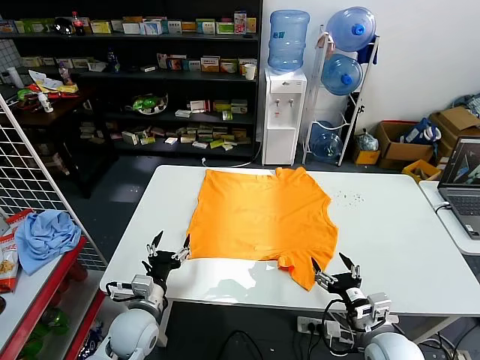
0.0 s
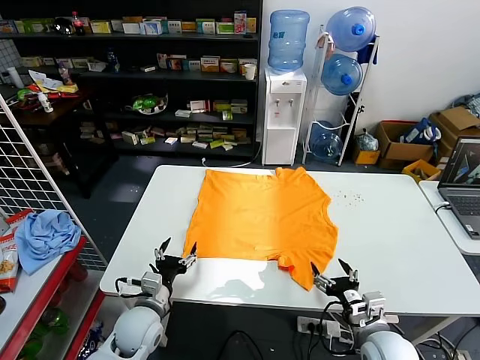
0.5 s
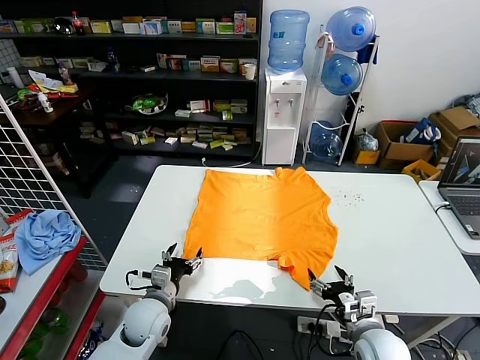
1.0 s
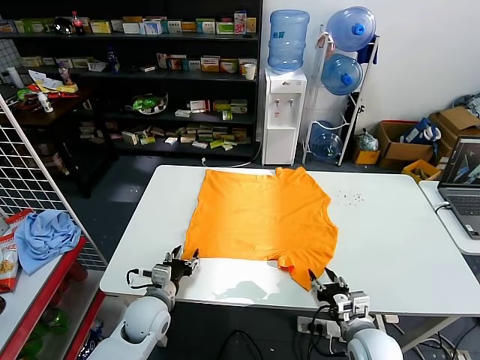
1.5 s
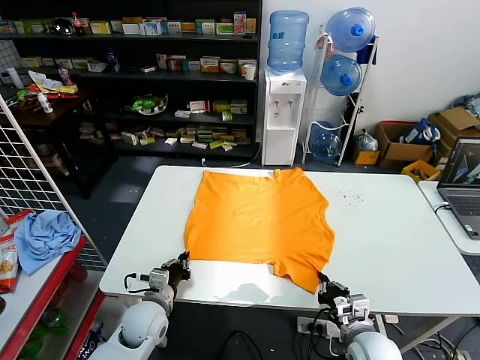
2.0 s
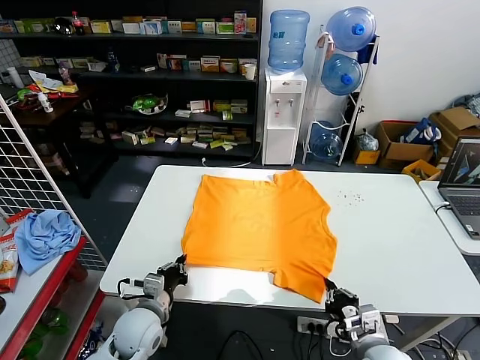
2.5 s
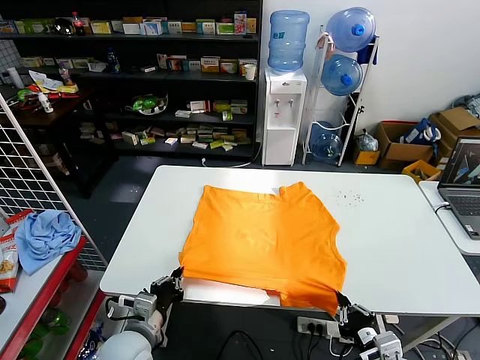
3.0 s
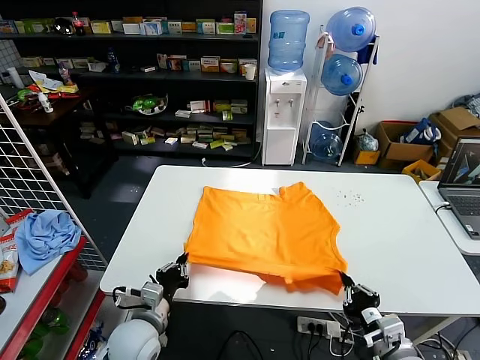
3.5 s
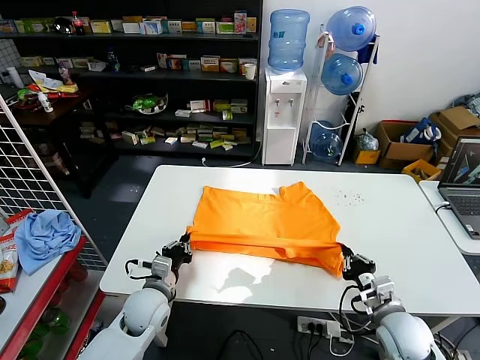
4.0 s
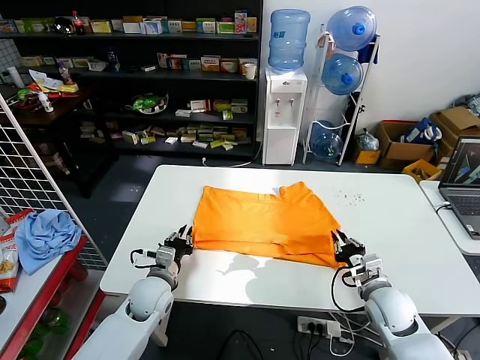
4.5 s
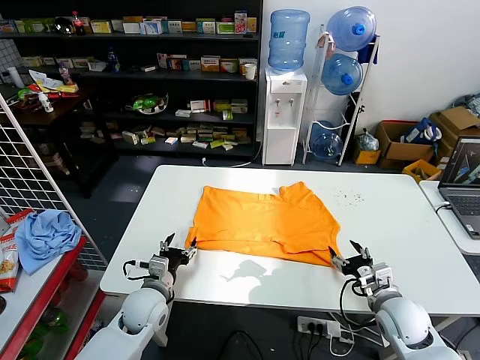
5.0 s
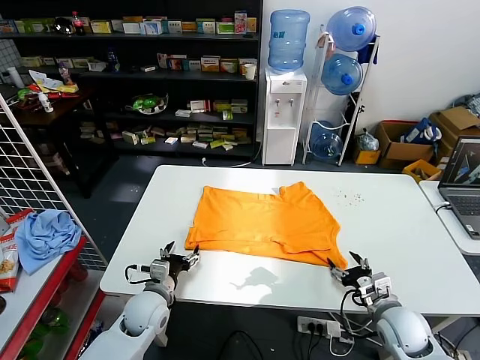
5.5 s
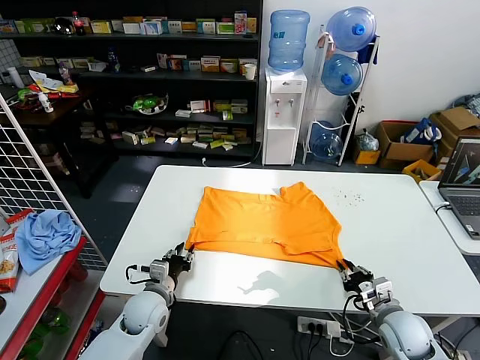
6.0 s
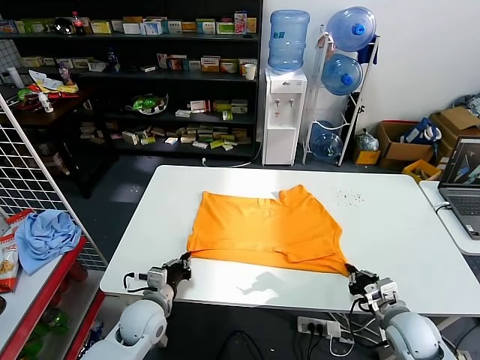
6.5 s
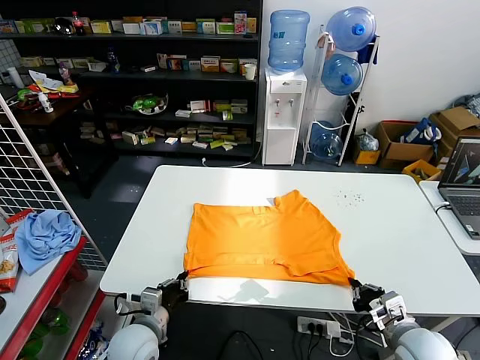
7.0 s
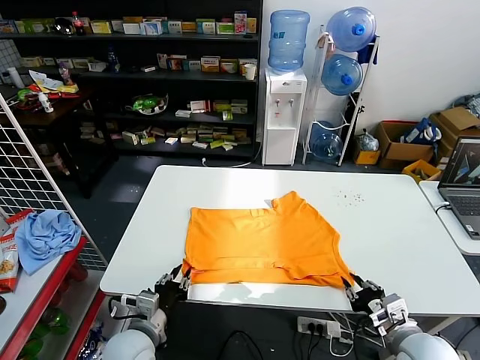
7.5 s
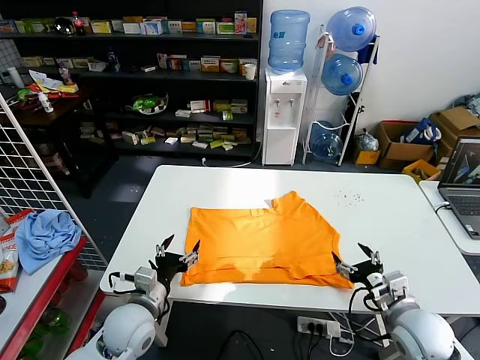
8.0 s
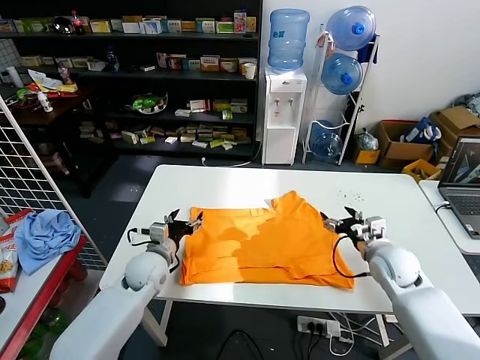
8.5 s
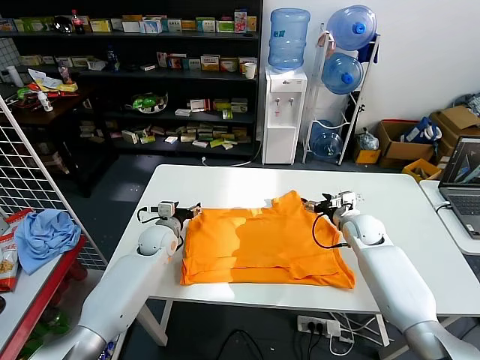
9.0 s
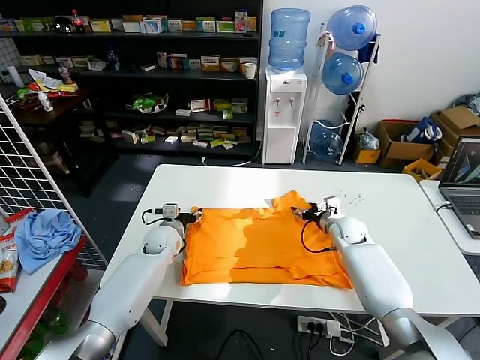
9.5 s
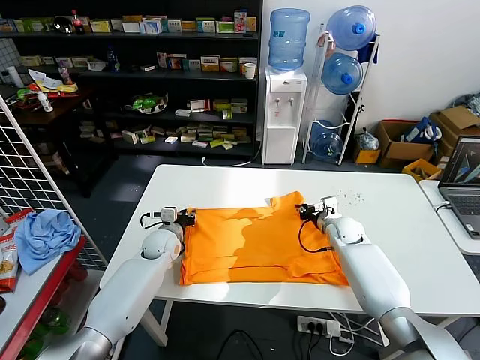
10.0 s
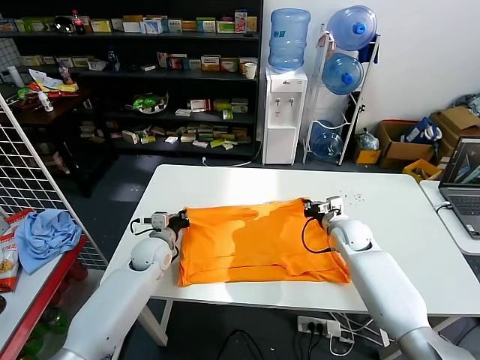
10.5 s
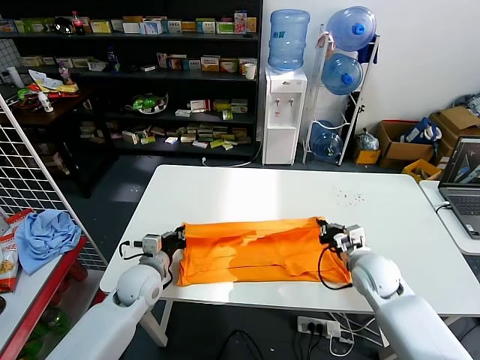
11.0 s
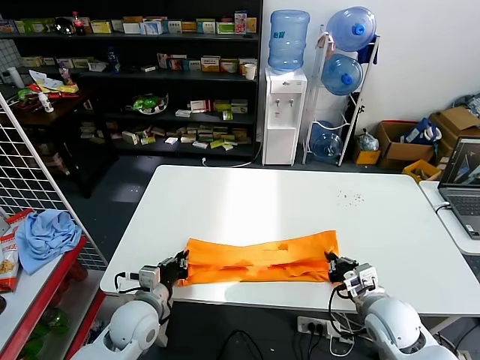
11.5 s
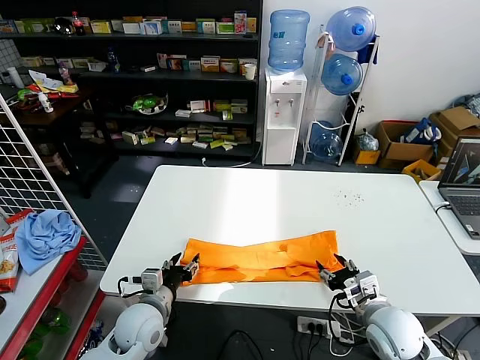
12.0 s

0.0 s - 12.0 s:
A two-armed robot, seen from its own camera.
Task of the whole recording: fold and organize the clothes.
Step, 0.0 s - 2.0 s: use both grippers simultaneously to clamp the lower edge of the clothing fabric.
Step, 2.5 s - 4.5 s: use both grippers to drag the lower edge of the fabric forward and fold it over the upper edge.
Step, 5.0 s - 7.5 s: Drag the clothes downward with both gripper.
Step, 8.0 s - 10.0 s: use both grippers simultaneously to clamp the upper edge of the clothing fabric.
2.0 s - 4.0 s: The left gripper travels backward and back again, roughly 10 cm each way. The right gripper is displaced to the right by approximately 5 cm, and moves roughly 10 cm backward and comes back.
4.0 s - 6.0 s: The right gripper opens, then closes once more. Meanwhile the left gripper opens.
6.0 s - 8.0 s: The right gripper moves upward, approximately 10 cm, and opens, while the left gripper shifts approximately 10 cm upward and backward, and opens up.
8.0 s - 10.0 s: Both grippers move forward, about 25 cm. The left gripper closes its fingers. The right gripper closes its fingers.
10.0 s - 12.0 s: Both grippers move backward, some 25 cm. The right gripper opens. Meanwhile the left gripper closes, then opens again.

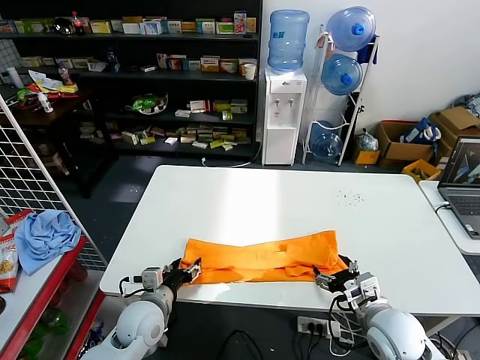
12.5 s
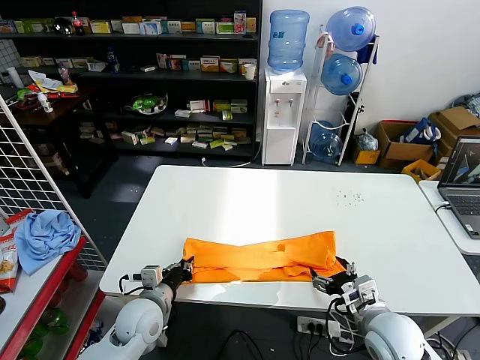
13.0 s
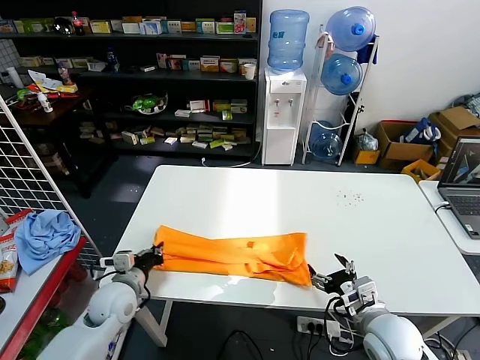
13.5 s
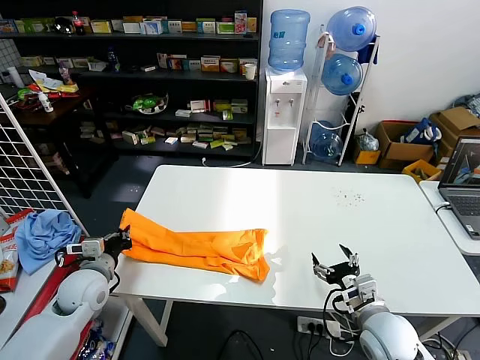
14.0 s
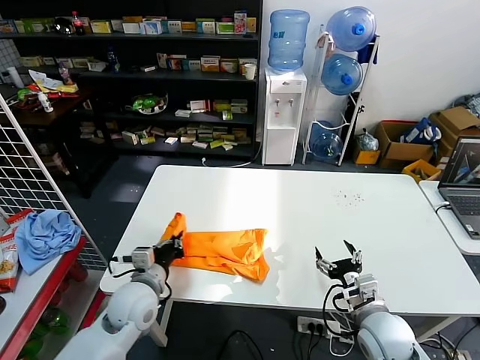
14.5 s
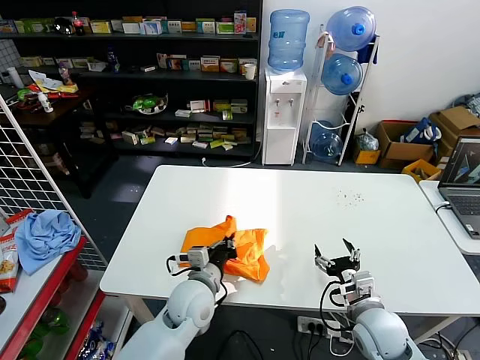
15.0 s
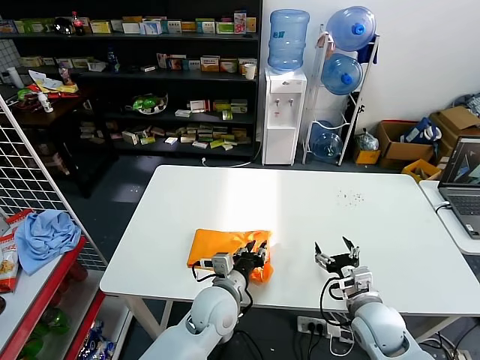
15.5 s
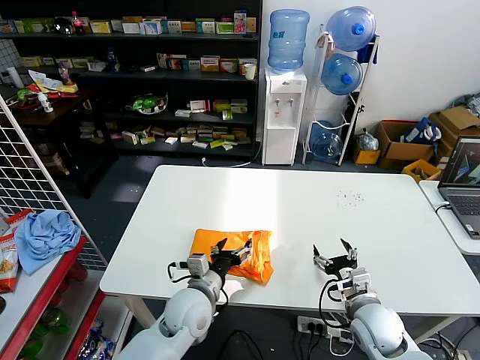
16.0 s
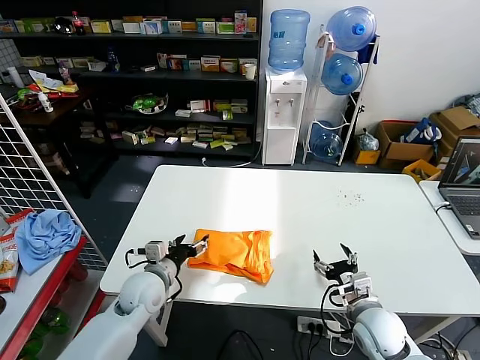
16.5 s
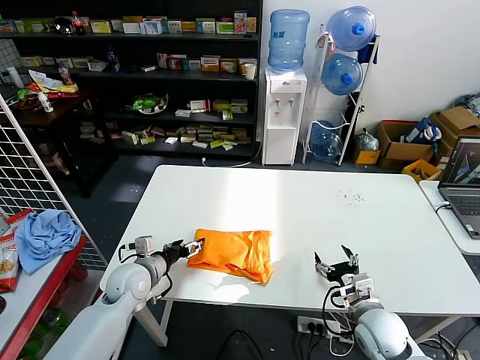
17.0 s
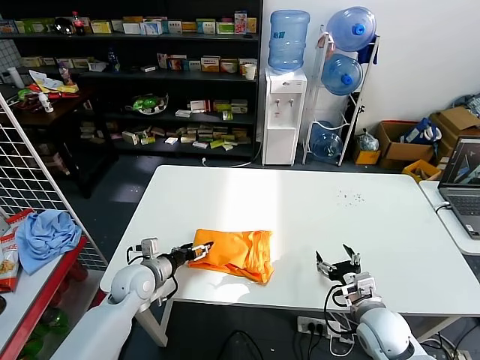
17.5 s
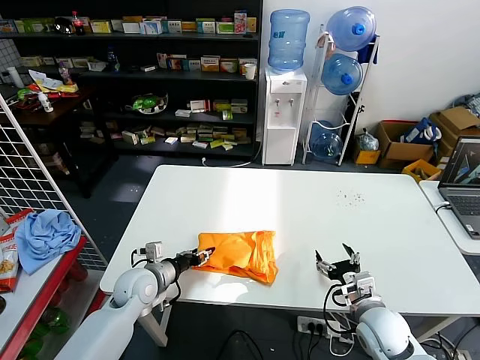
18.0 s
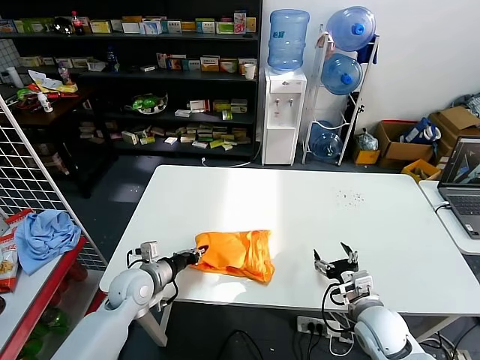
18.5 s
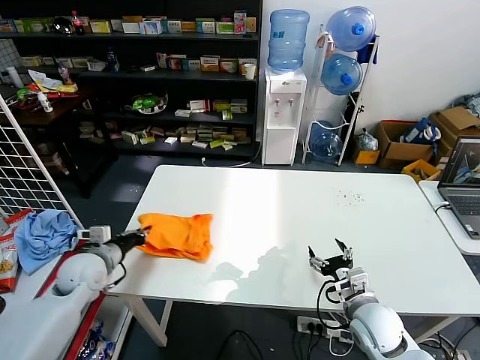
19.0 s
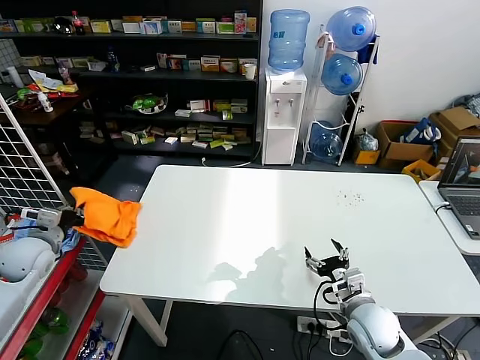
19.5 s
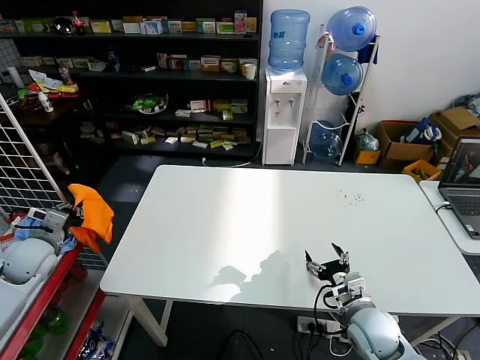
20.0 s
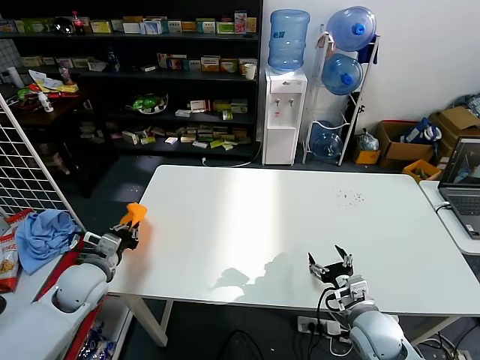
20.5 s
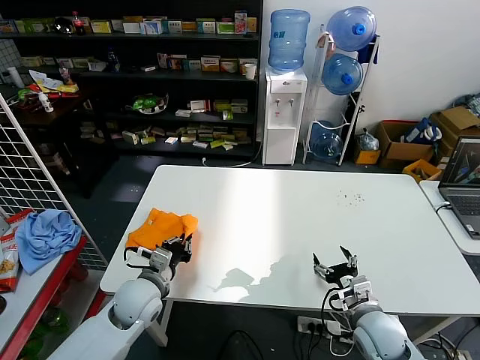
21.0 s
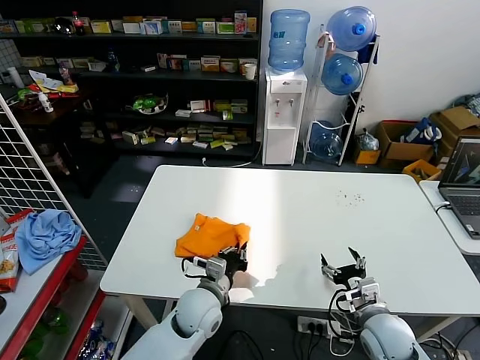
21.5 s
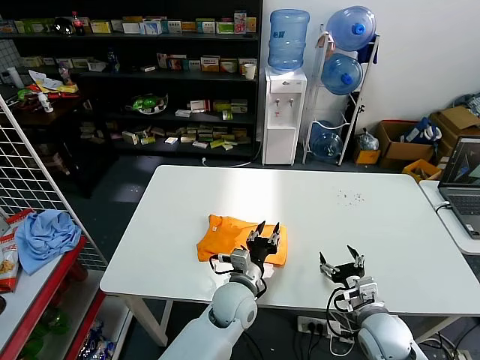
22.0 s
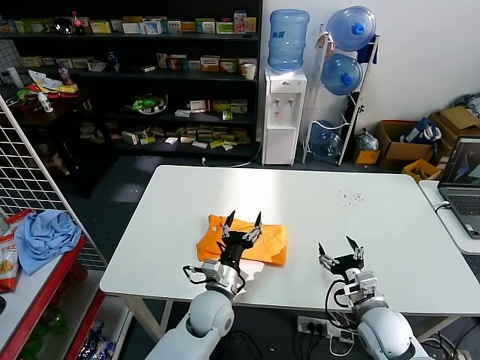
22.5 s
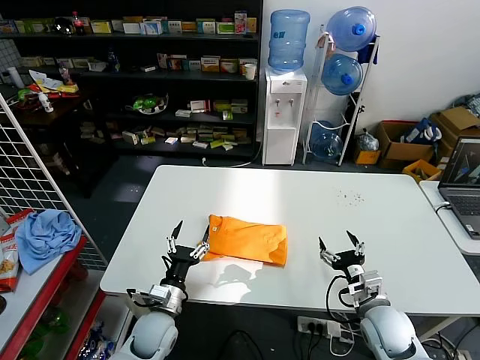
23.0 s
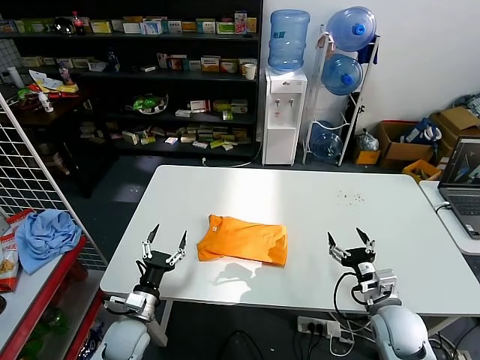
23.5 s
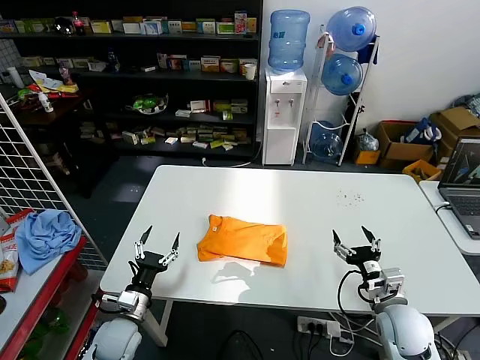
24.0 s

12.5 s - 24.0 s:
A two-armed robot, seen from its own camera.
Task of the whole recording: fold and organize the clothes.
Step, 12.5 s - 13.0 s: use the left gripper to clamp the left edge of the fabric.
Step, 13.5 s - 15.5 s: use the left gripper to drag the left edge of the fabric to the left and folds it over the right edge.
Step, 16.0 s - 22.0 s: Flip the folded clothes over with left gripper.
12.5 s - 14.5 s: The left gripper moves upward, roughly 5 cm, travels to the left and back again, about 15 cm each way, and closes its fingers.
14.5 s - 16.5 s: The left gripper travels to the right and back again, roughly 20 cm each way, and opens up.
16.5 s - 18.5 s: The left gripper closes up.
18.5 s - 20.0 s: The left gripper is displaced to the left and upward by approximately 25 cm.
20.0 s - 22.0 s: The left gripper heads to the right, covering roughly 50 cm, and opens up.
22.0 s - 24.0 s: The left gripper goes some 25 cm to the left, and opens its fingers.

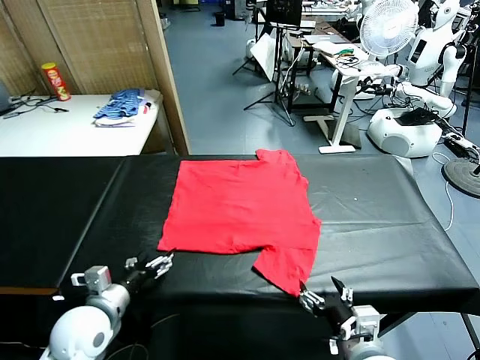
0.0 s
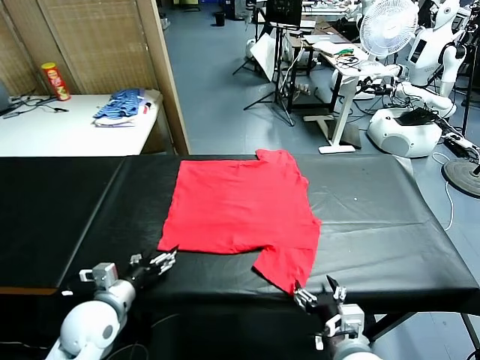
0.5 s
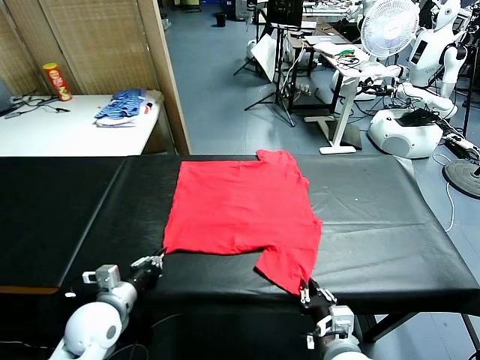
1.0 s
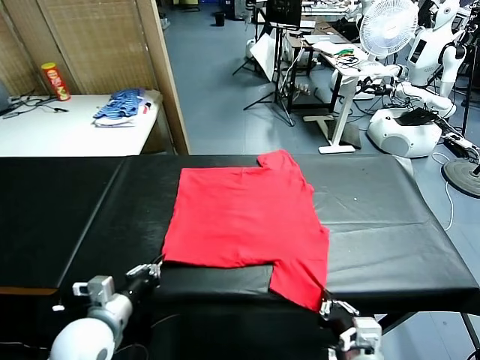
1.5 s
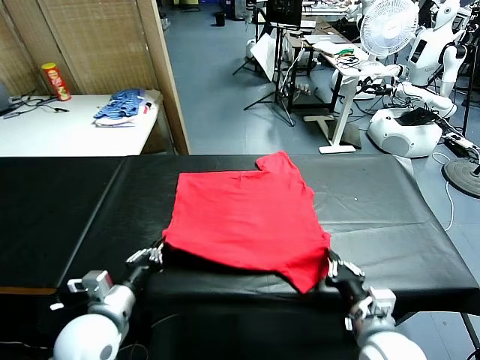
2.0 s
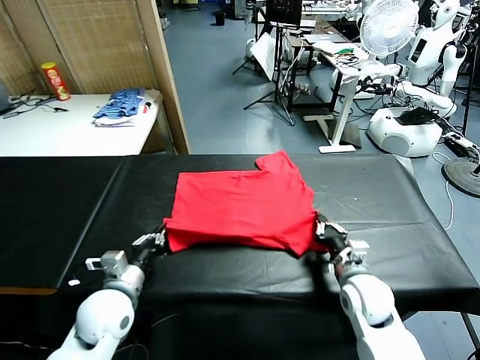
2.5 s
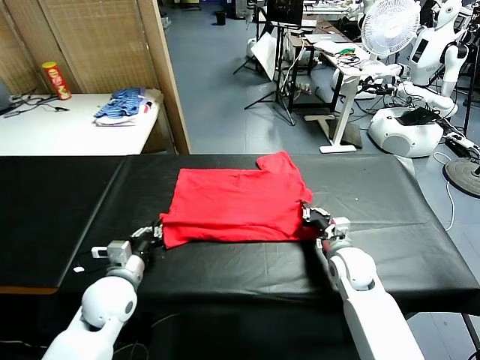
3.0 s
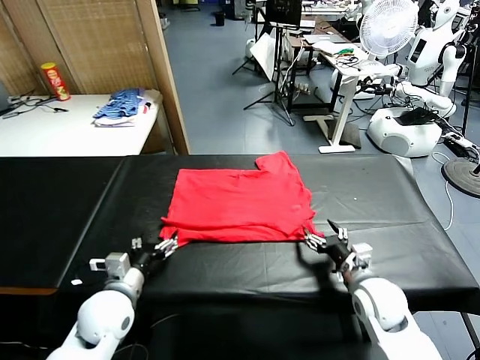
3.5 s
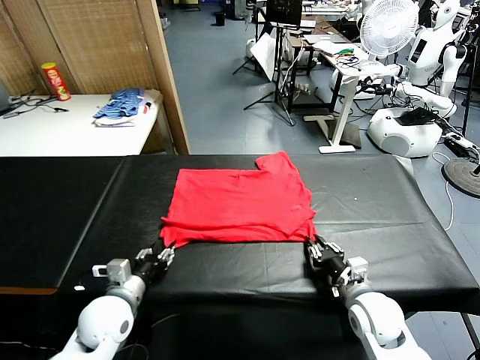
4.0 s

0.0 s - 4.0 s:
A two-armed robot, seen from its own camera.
Task of the whole recording: fold and organize the clothes.
Step, 0.0 s - 1.5 s: use both grippers simultaneously to clamp the lower edge of the clothing fabric.
Step, 2.0 s - 3.0 s: use both grippers to drag the lower edge of the fabric forward and fold it over the upper edge.
2.0 s - 4.0 s: The left gripper moves downward, some 5 cm, and opens up. The right gripper goes forward and returns, approximately 10 cm each way, and opens and closes again.
